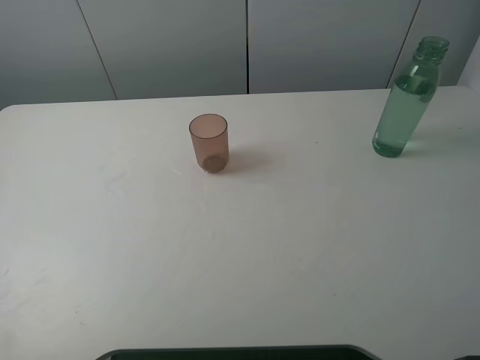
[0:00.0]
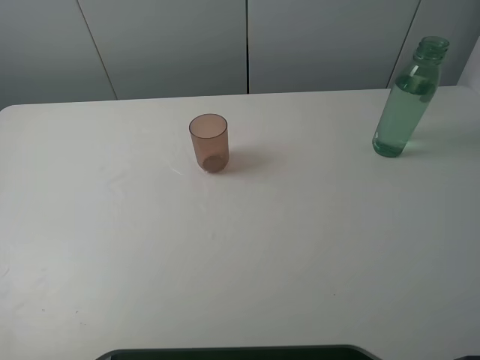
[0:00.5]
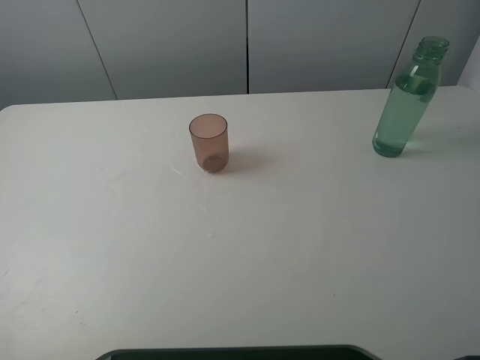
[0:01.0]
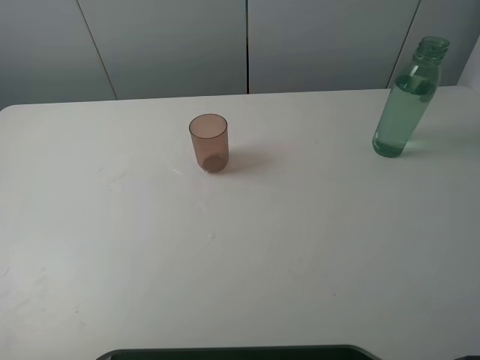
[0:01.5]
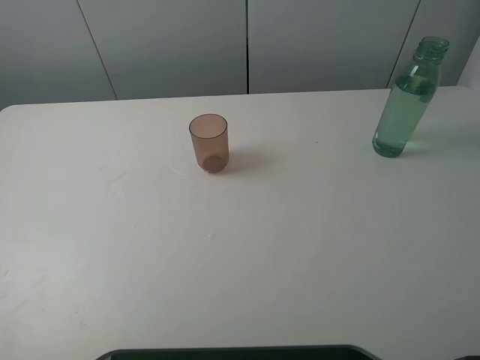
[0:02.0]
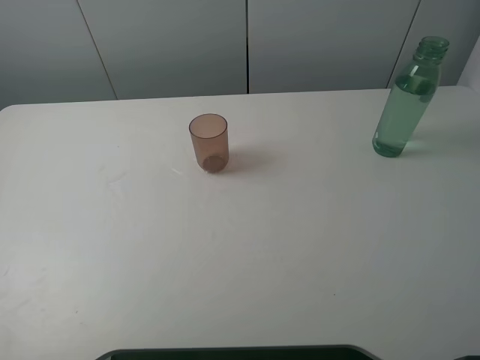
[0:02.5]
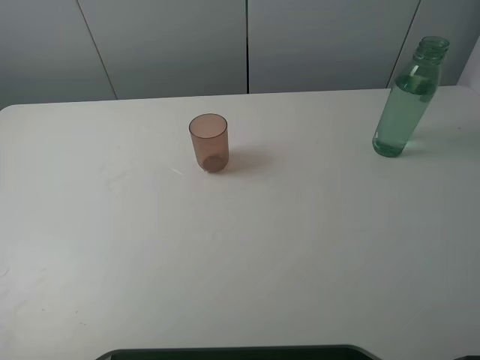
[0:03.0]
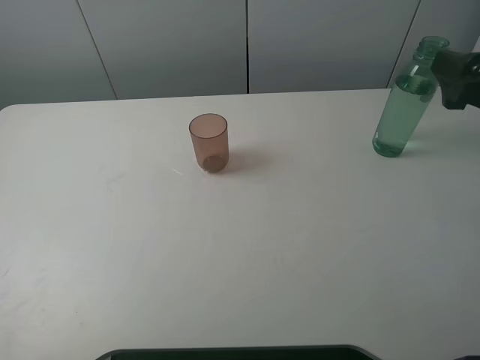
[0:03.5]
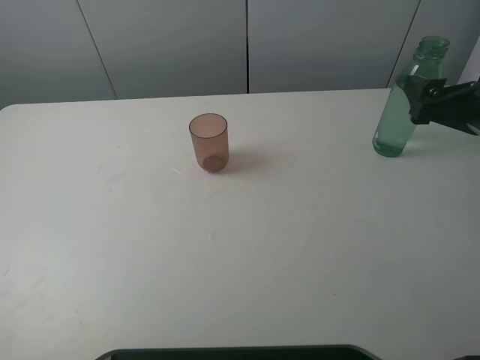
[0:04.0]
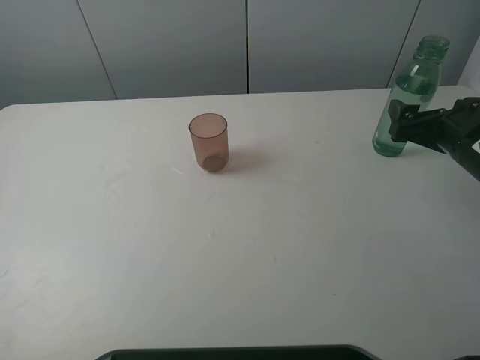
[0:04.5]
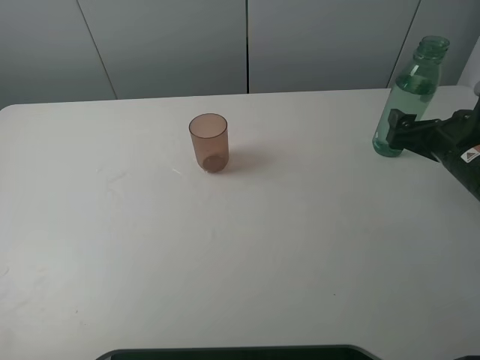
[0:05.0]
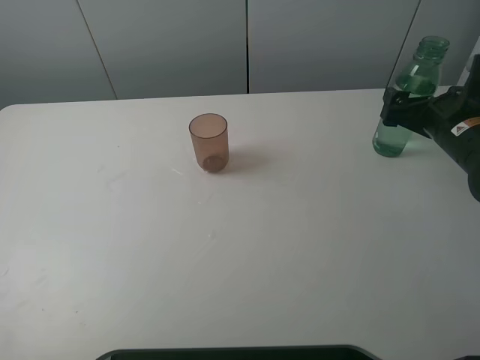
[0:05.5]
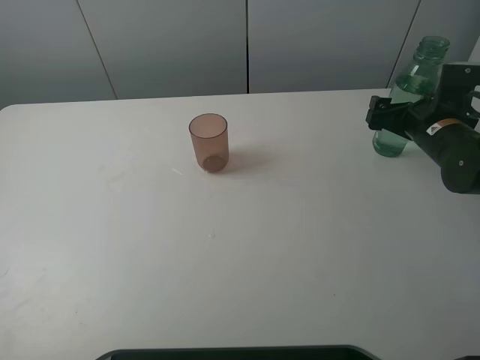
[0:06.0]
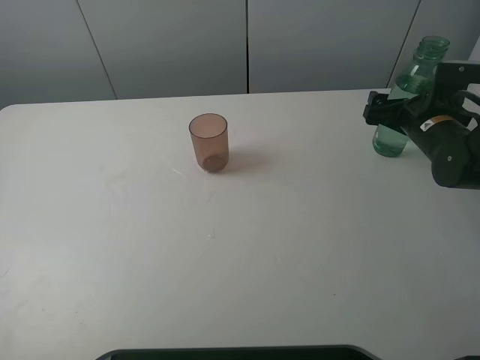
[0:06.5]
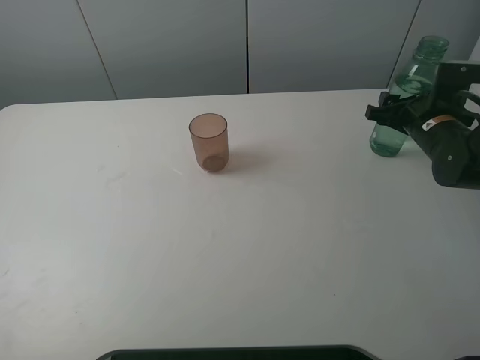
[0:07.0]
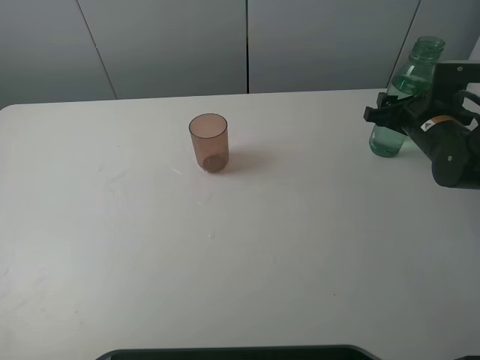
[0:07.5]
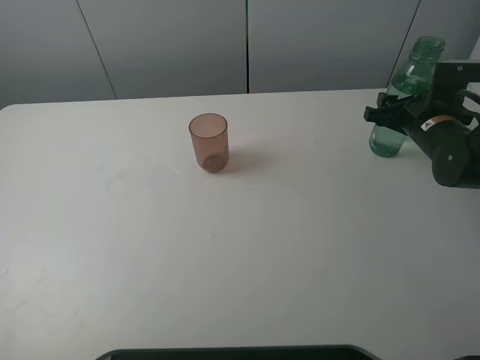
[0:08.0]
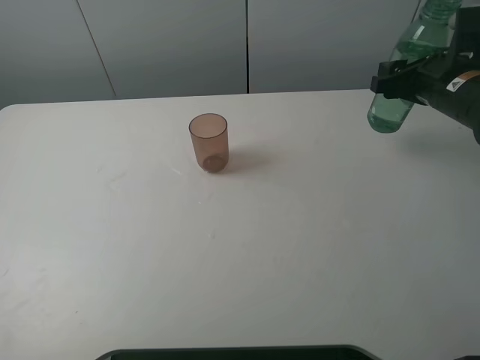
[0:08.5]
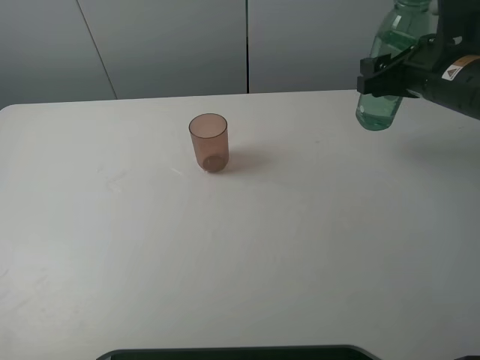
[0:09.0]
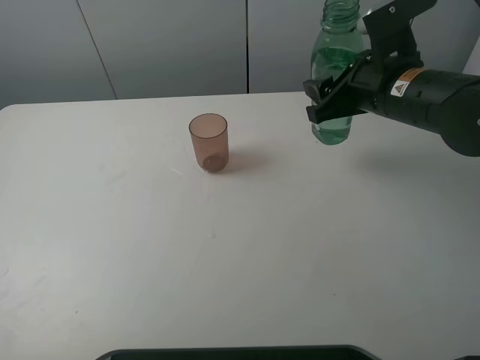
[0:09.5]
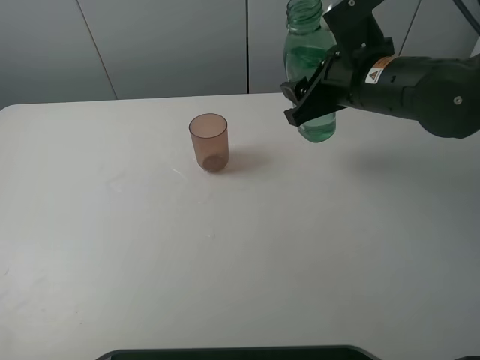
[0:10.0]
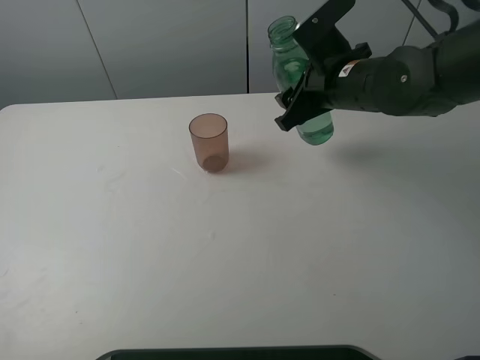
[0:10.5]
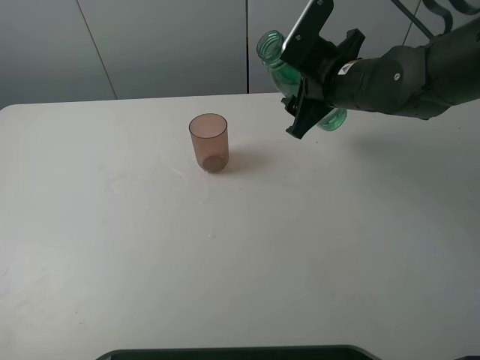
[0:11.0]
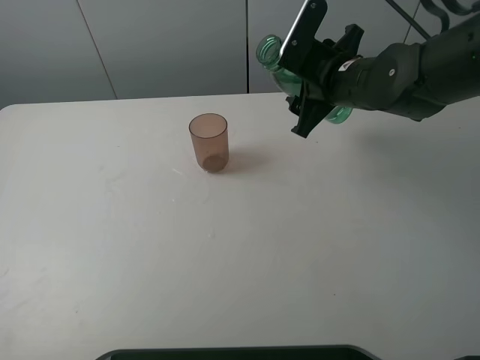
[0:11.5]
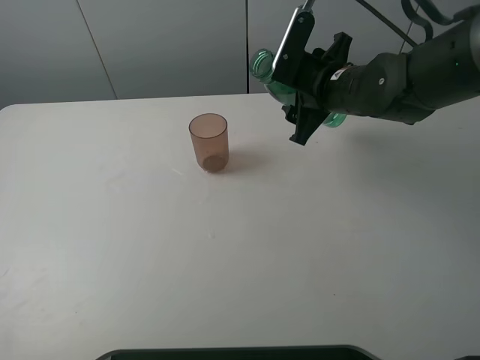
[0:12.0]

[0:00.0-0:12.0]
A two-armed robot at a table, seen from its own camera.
Task of the whole recording: pick up the bottle filled with water and pour it into the pink cup.
Step, 0.0 to 7.0 s: Grasp the green bottle with the right gripper.
2.0 to 4.0 s: The right gripper moves forward and downward, some 25 cm.
4.0 to 6.0 s: The right gripper travels forward and downward by roughly 15 cm.
6.0 to 8.0 s: The right gripper closes its fingers.
8.0 to 10.0 s: The right gripper goes roughly 15 cm to the left and upward.
10.0 to 12.0 s: The right gripper changes place by roughly 5 cm.

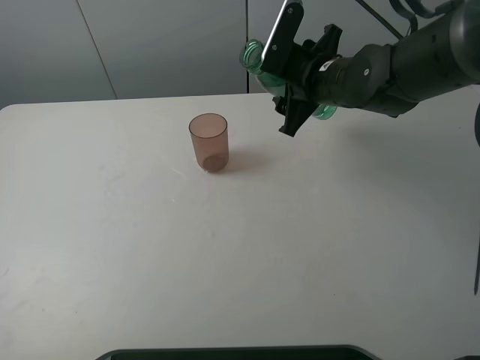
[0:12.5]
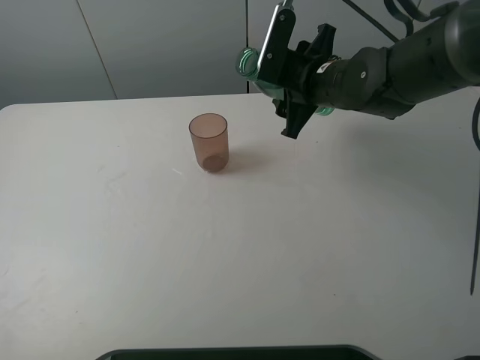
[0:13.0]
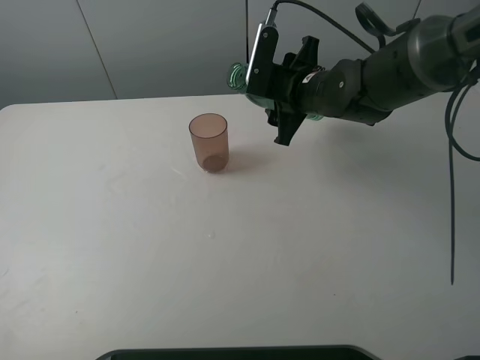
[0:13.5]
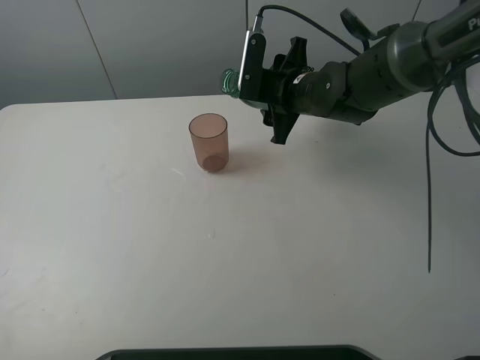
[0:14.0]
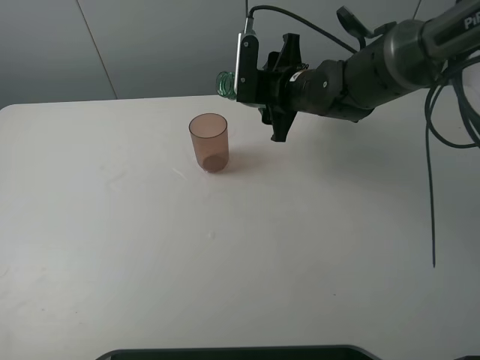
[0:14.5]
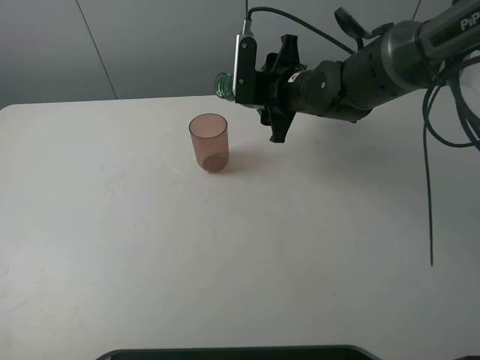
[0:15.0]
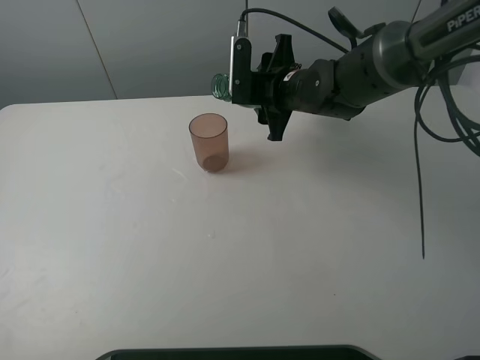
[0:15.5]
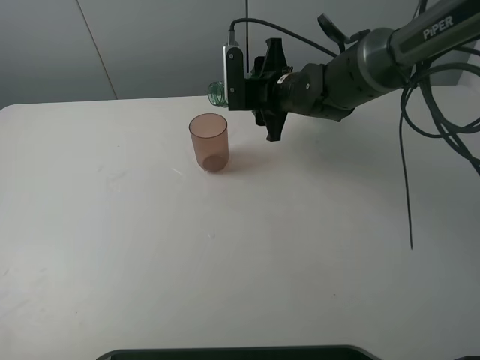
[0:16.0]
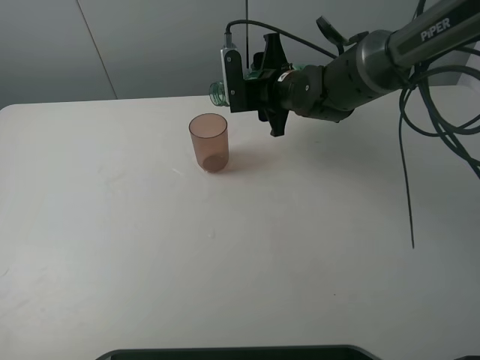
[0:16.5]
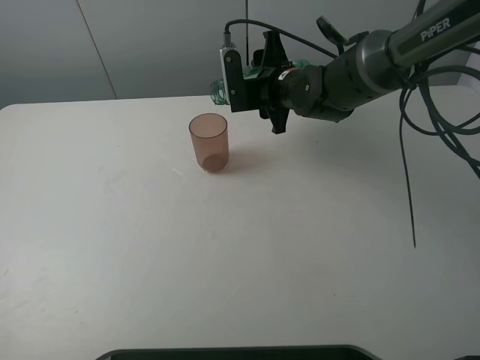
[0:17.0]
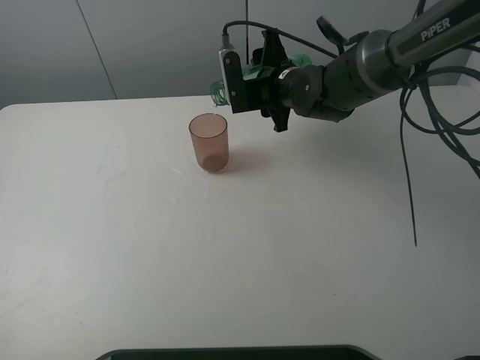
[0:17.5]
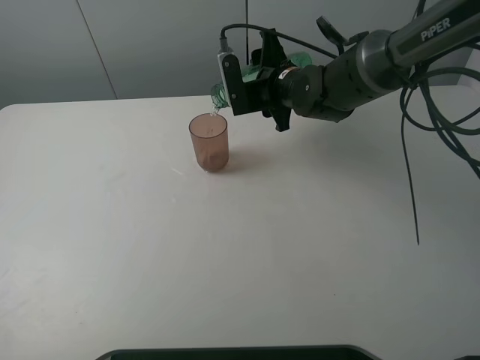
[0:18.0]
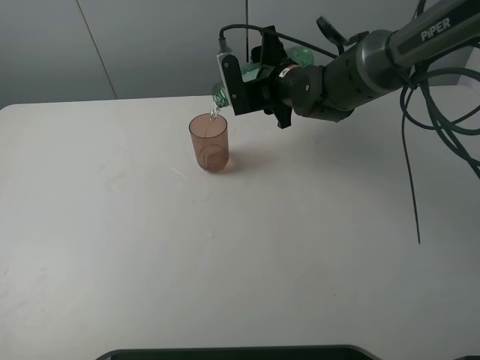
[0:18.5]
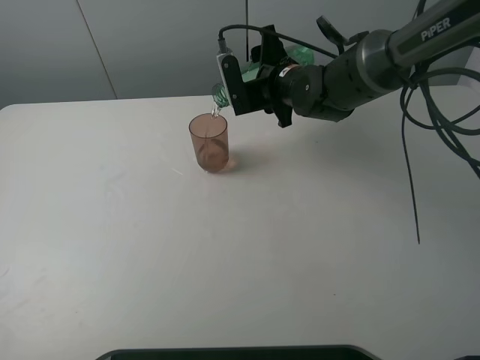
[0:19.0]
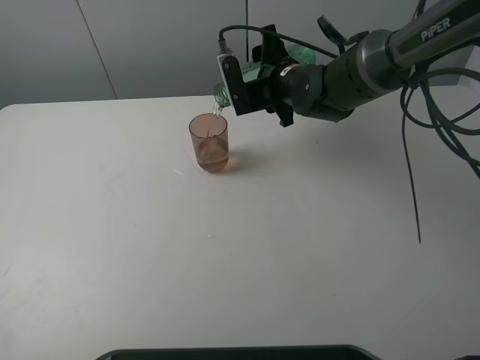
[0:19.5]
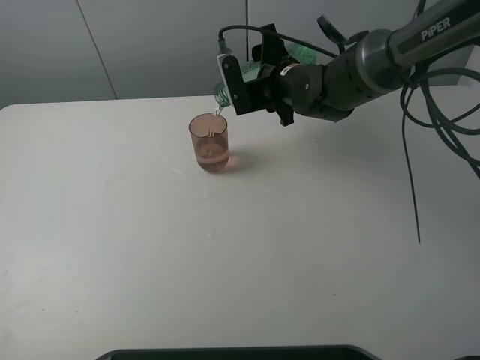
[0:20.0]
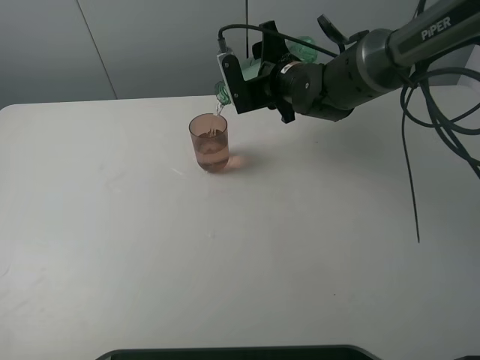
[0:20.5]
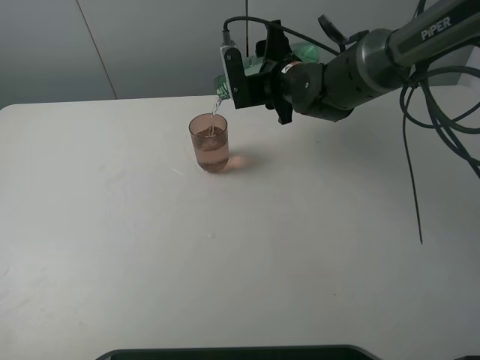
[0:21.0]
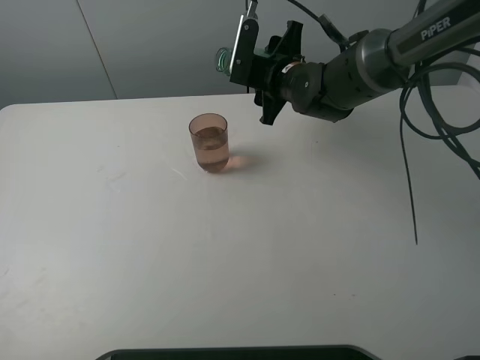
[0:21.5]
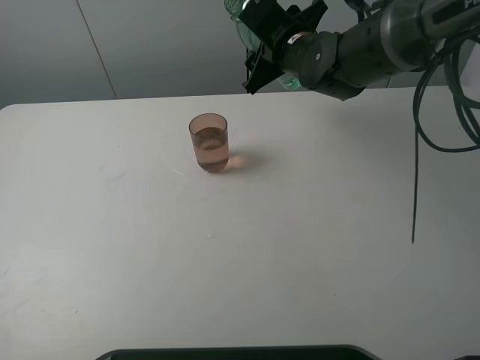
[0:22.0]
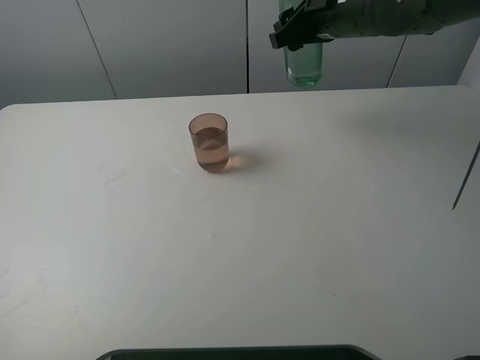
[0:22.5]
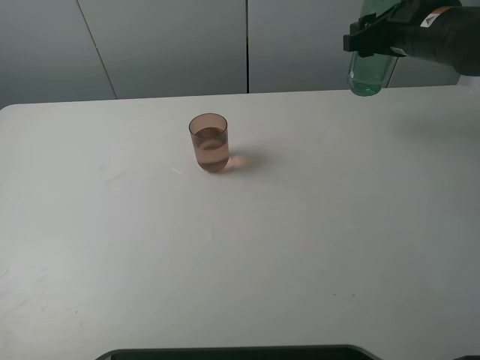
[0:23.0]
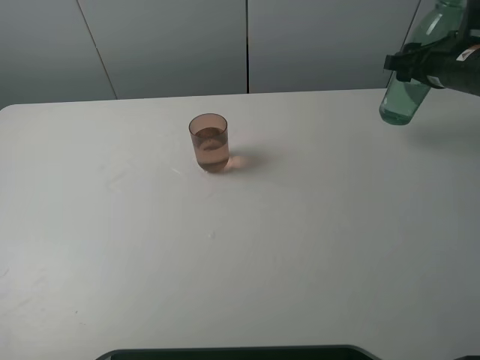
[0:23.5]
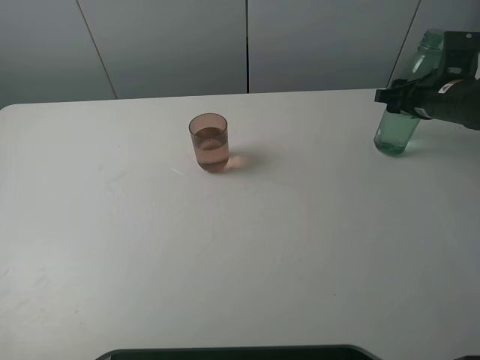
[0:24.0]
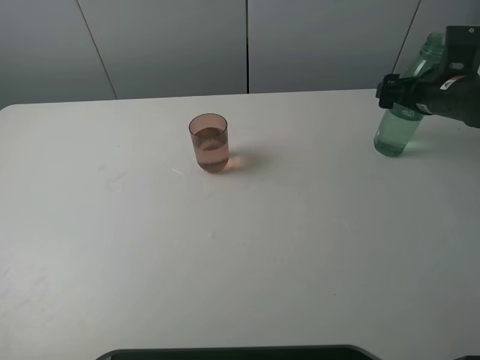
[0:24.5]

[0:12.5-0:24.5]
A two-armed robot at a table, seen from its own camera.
Task of the whole recording: pick up the bottle filled with water and pour it into the pink cup.
Step, 12.5 to 21.0 s: Pour water from green bottle to pink cup with the right gripper.
12.5 to 14.5 s: There are only small adjustments of the grippers.
14.5 to 16.5 s: The grippers stay close to where they were, moving slightly.
16.5 to 18.5 s: The grippers make only small movements.
18.5 to 20.5 s: Neither gripper changes place.
20.5 to 22.5 s: The right gripper shifts about 10 cm upward and to the right.
22.5 to 24.5 s: The right gripper travels to the right and downward by some 20 cm, and opens.

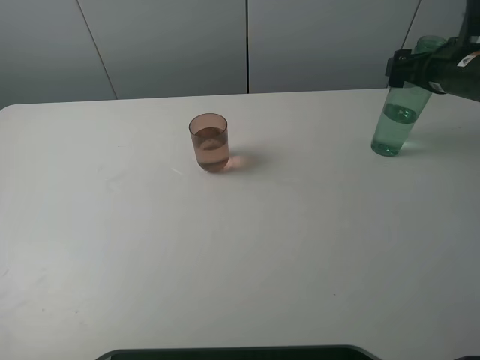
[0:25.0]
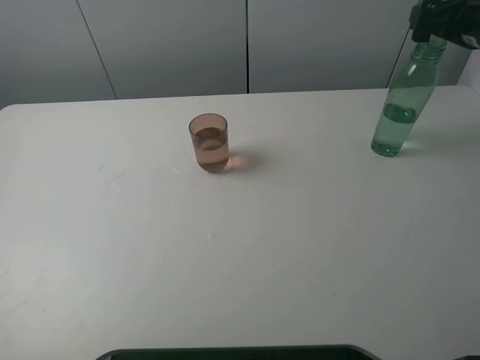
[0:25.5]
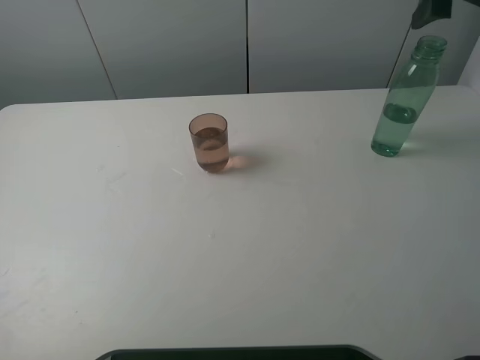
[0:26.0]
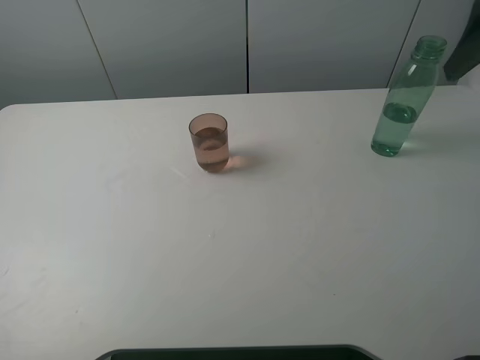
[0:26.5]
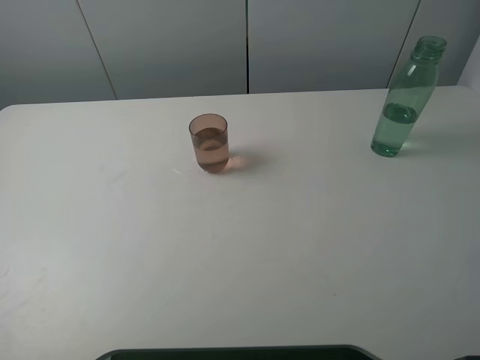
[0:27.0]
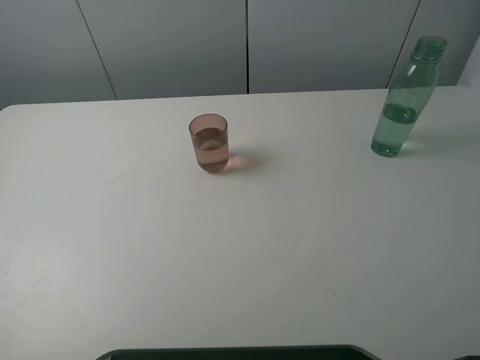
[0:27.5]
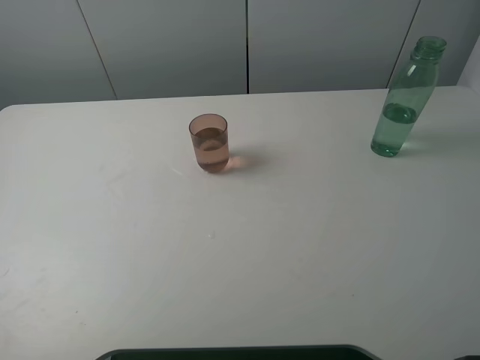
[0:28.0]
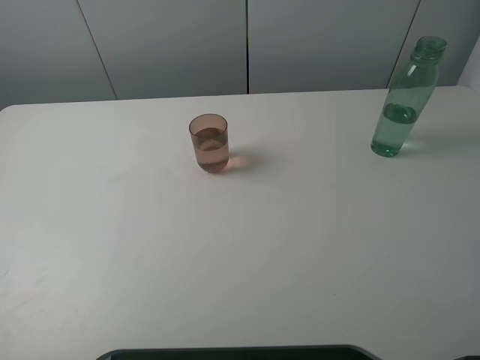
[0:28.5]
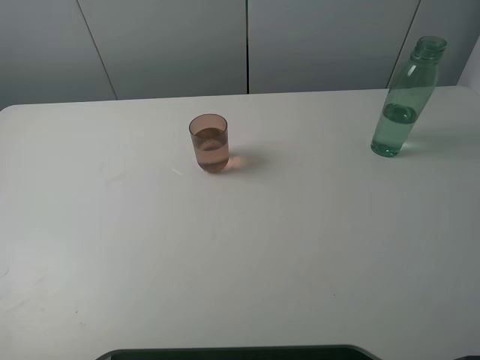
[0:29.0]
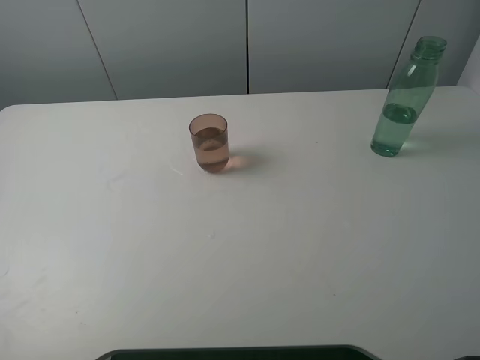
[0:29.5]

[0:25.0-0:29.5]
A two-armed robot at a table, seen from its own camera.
Task of the whole recording: pick up the bottle filled with water and pour it into the pink cup.
25.0 to 27.0 s: The right gripper moves backward and upward, some 30 cm.
